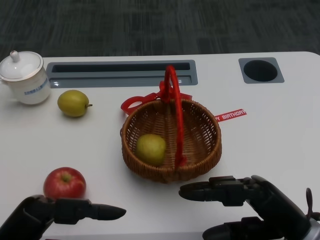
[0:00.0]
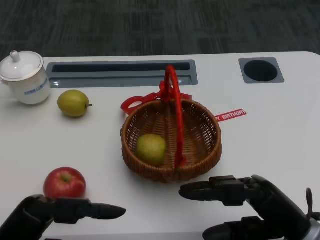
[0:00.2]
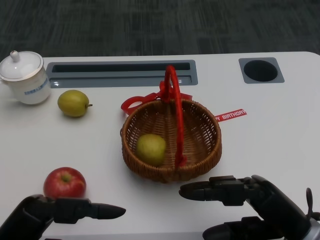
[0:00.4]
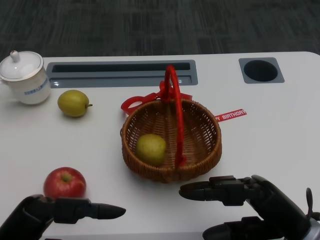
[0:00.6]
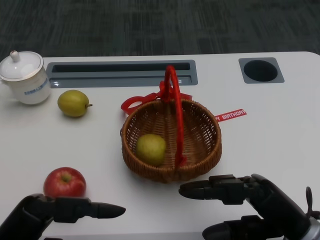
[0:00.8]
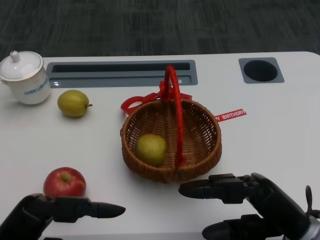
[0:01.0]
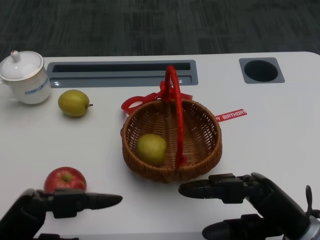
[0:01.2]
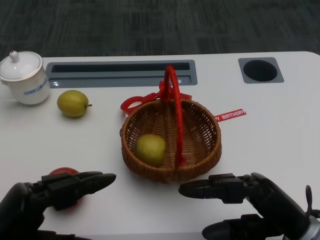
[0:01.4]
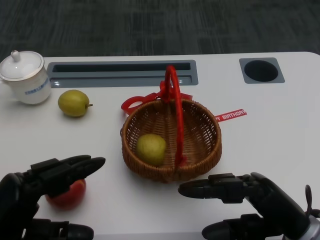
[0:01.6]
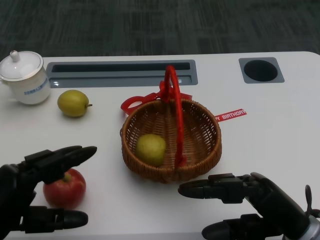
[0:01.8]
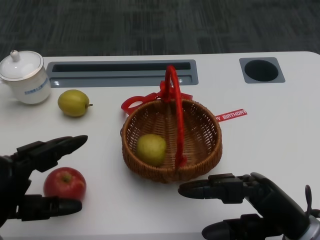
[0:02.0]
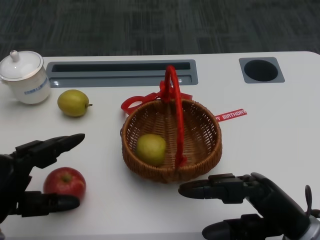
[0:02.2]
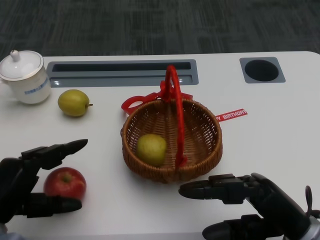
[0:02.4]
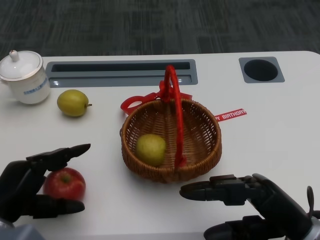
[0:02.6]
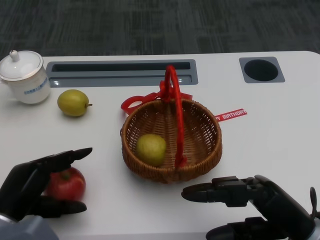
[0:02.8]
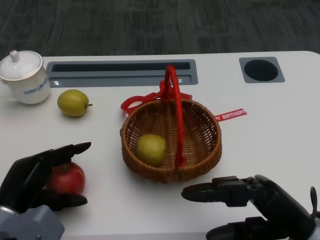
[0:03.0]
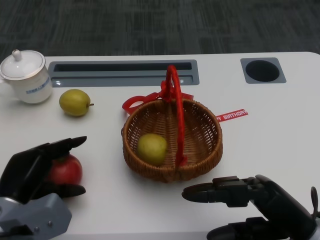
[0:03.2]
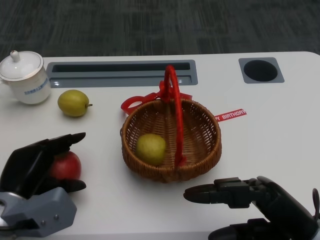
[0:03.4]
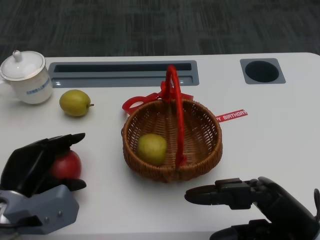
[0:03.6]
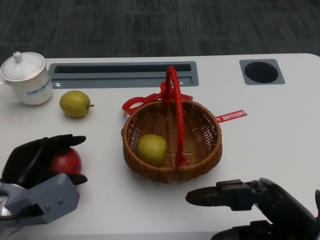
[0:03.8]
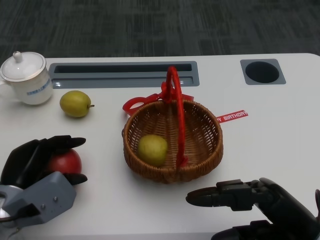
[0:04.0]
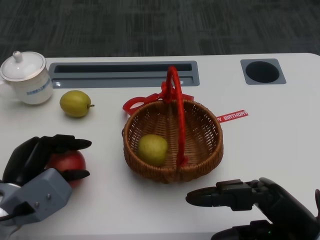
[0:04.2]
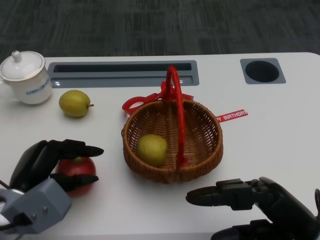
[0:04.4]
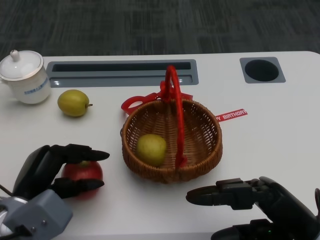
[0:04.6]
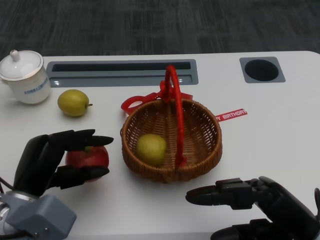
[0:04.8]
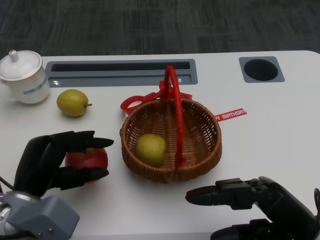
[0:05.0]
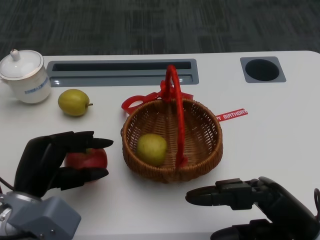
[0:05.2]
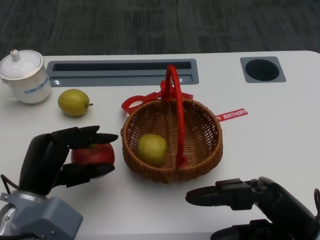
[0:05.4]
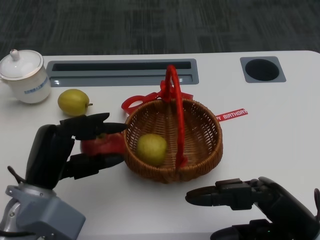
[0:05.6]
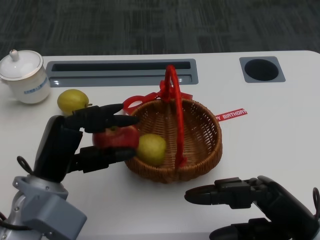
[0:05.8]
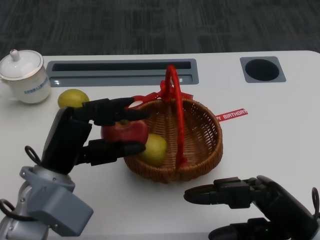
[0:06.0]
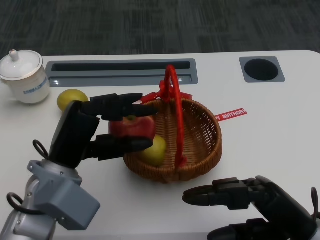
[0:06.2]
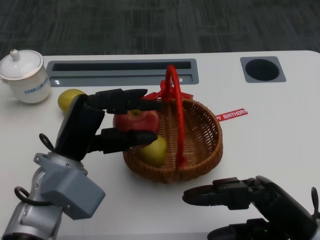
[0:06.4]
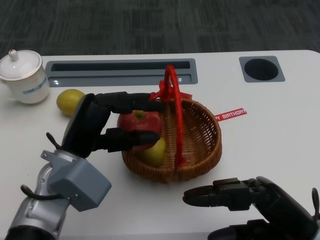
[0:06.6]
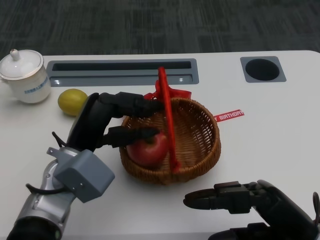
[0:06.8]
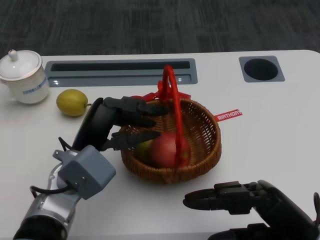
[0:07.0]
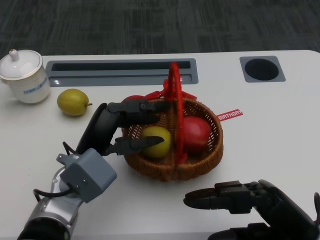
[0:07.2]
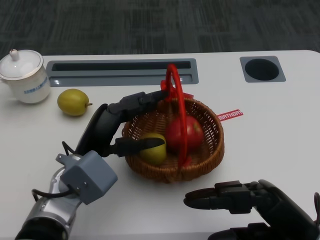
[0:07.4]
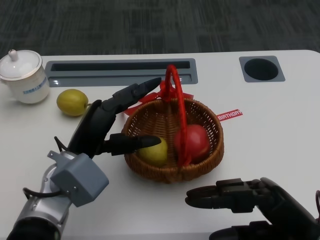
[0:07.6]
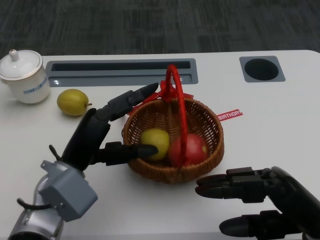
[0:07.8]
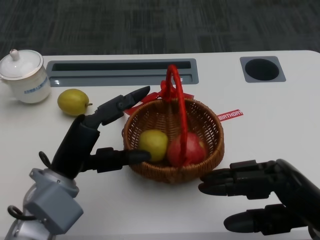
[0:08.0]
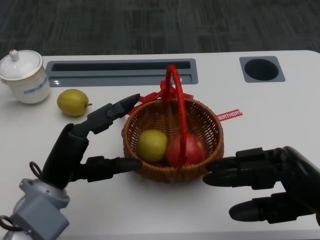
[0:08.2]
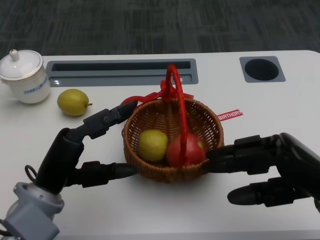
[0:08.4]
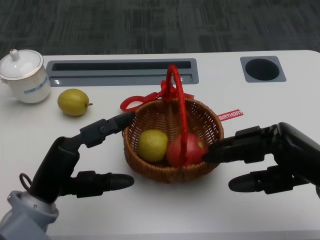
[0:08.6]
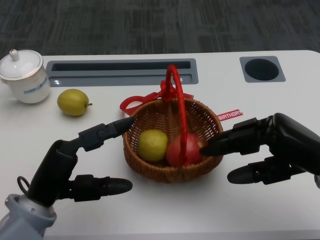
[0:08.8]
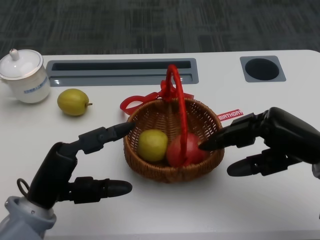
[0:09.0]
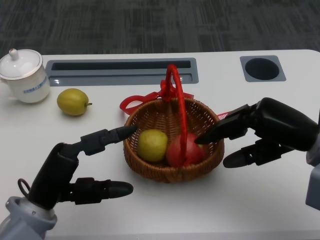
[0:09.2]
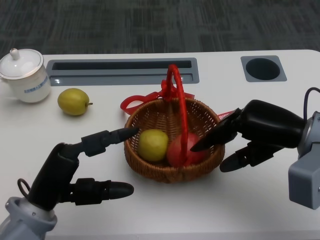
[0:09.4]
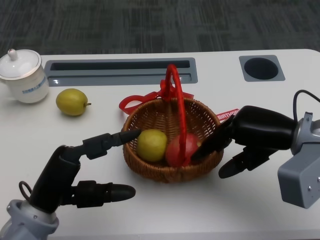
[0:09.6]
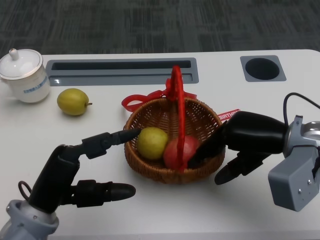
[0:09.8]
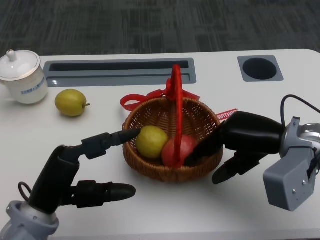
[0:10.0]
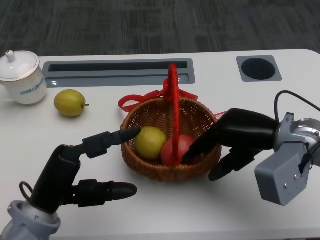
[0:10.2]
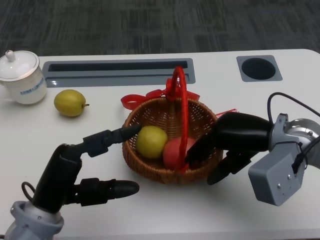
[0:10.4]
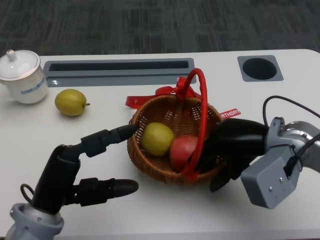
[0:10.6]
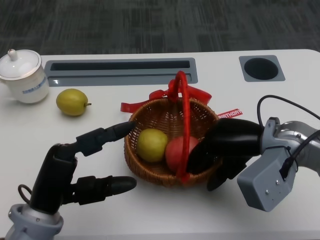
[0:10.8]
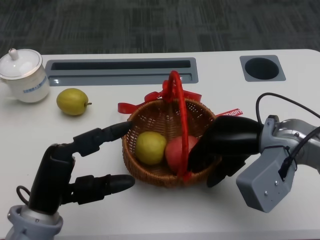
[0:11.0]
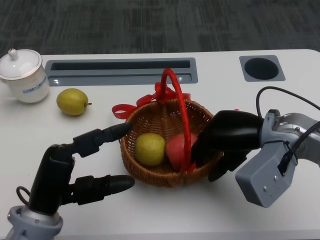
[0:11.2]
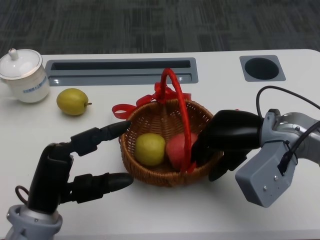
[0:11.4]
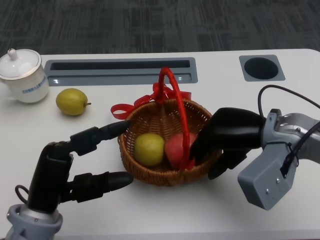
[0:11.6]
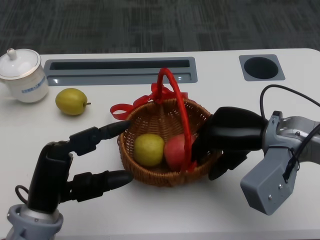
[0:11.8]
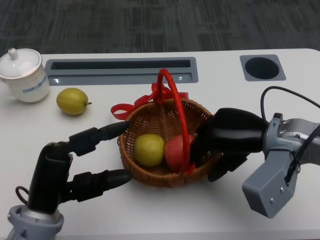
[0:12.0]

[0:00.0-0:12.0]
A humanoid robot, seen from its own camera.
Step, 0:01.0 to 0:03.2: Grasp the apple with the left gripper.
Step, 0:03.4 to 0:06.0: Place the apple into the basket with the left gripper.
Step, 0:06.4 to 0:09.6: Grasp the basket with the right gripper.
0:01.6 to 0:03.0: The left hand travels forward and downward by roughly 10 cm.
0:03.0 to 0:04.4: There are only small adjustments of the hands.
0:04.4 to 0:06.0: The left hand goes roughly 10 cm upward and to the right.
0:06.0 to 0:07.6: The hands make only small movements.
0:07.6 to 0:09.0: The left hand shifts roughly 10 cm backward and to the left; the right hand goes approximately 10 cm forward.
0:09.0 to 0:10.4: The right hand travels to the left by about 5 cm.

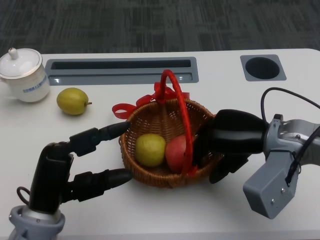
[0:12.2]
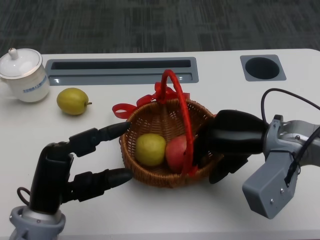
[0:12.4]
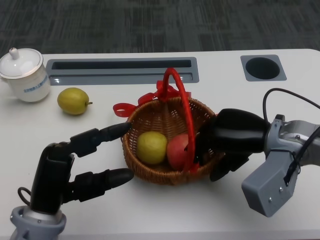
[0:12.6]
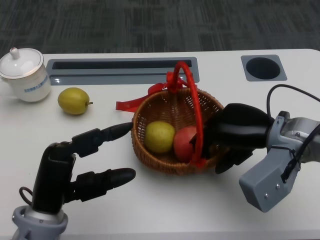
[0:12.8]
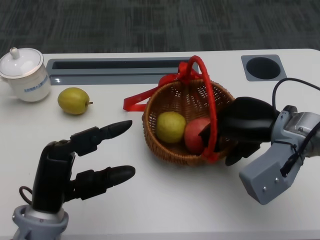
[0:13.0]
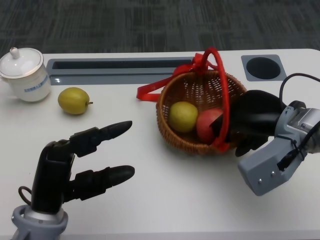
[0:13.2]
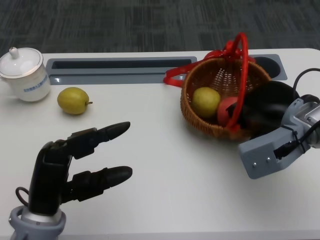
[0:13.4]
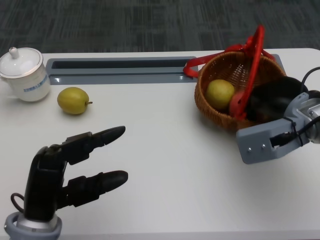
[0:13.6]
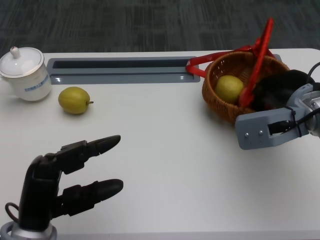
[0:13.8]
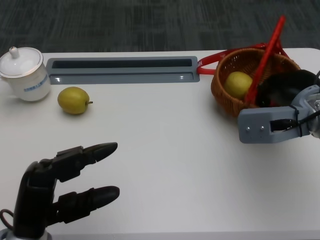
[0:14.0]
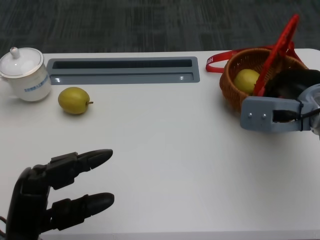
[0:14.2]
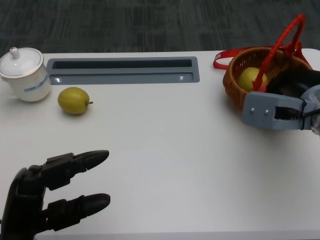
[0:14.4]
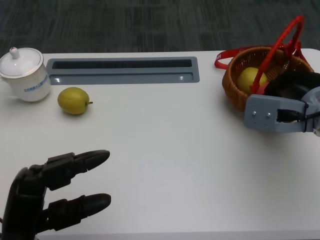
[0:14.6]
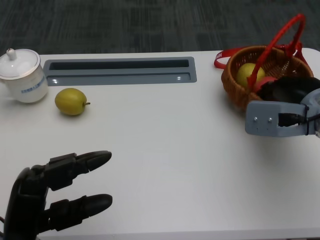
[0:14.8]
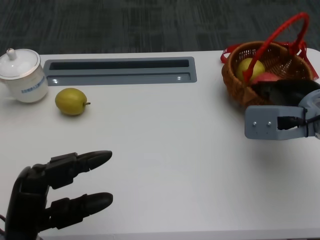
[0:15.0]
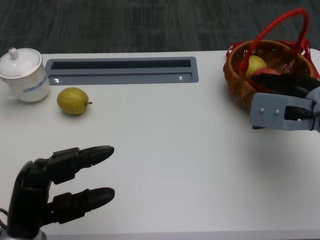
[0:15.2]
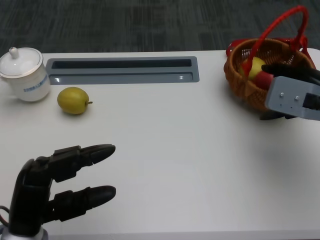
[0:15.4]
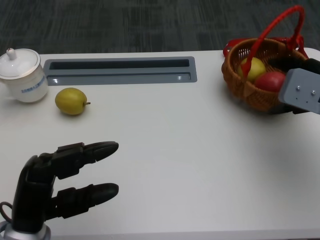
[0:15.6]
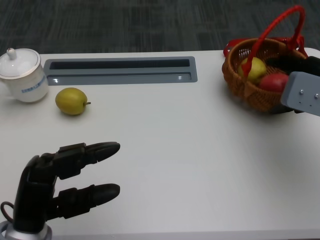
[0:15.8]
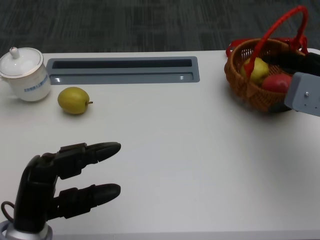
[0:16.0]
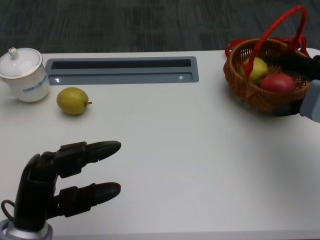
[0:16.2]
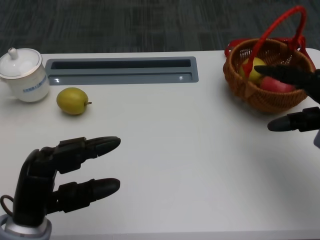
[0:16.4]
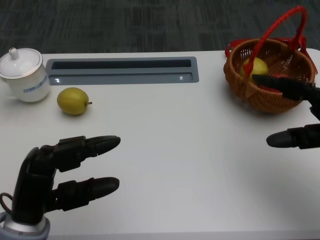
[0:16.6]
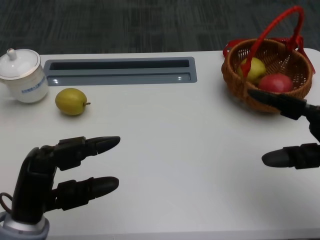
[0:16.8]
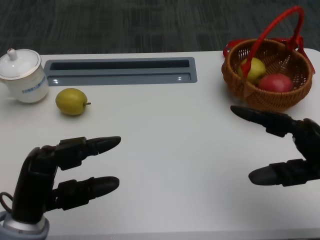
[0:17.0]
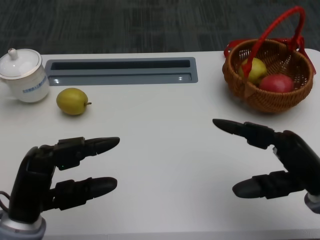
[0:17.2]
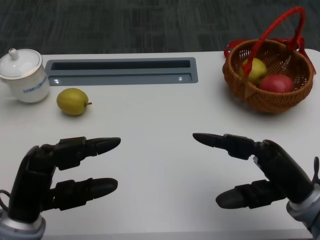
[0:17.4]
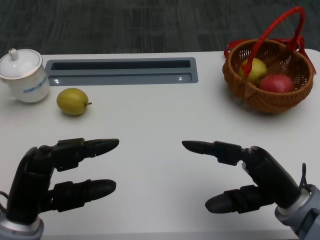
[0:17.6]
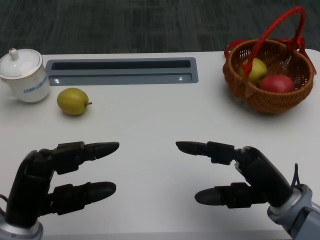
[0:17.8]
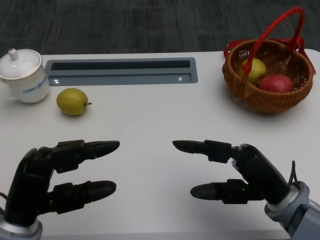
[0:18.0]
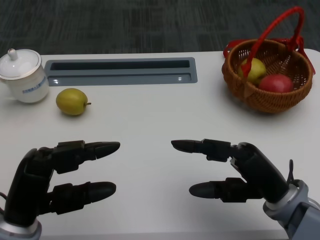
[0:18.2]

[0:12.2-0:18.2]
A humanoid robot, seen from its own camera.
0:12.2 to 0:13.8: The right hand shifts by roughly 5 cm.
0:15.2 to 0:16.6: The right hand travels backward and to the right by about 10 cm.
0:16.6 to 0:18.2: The right hand goes some 10 cm to the left and backward.
